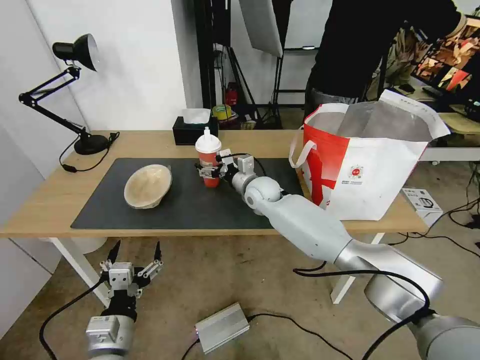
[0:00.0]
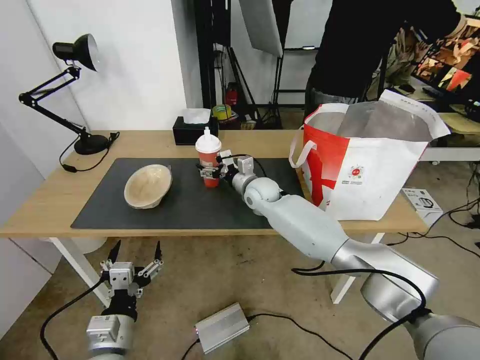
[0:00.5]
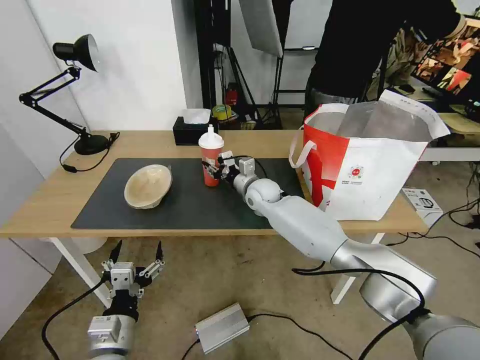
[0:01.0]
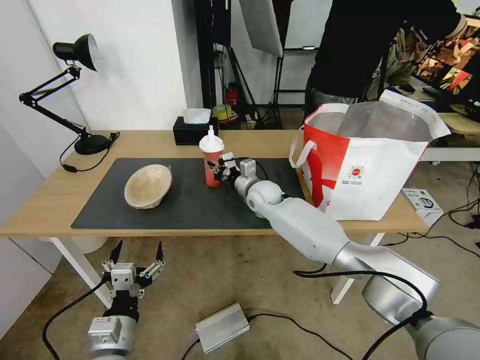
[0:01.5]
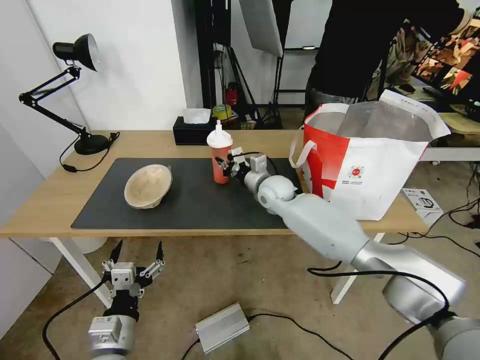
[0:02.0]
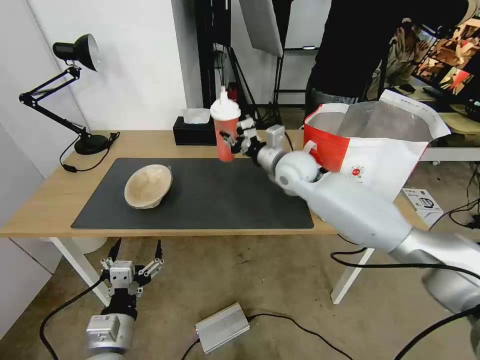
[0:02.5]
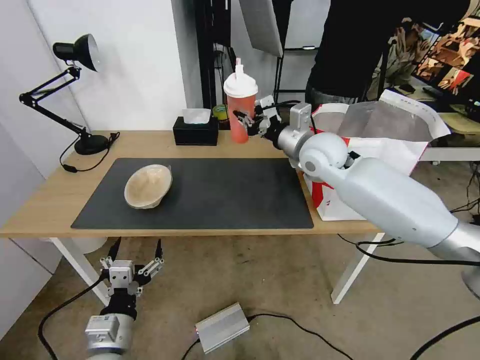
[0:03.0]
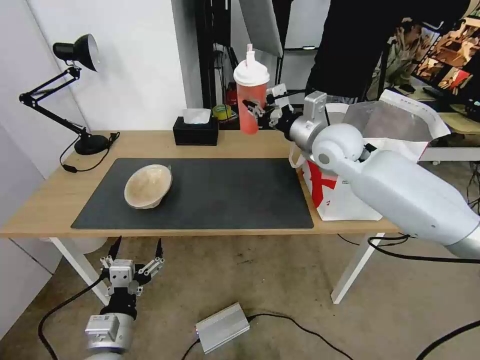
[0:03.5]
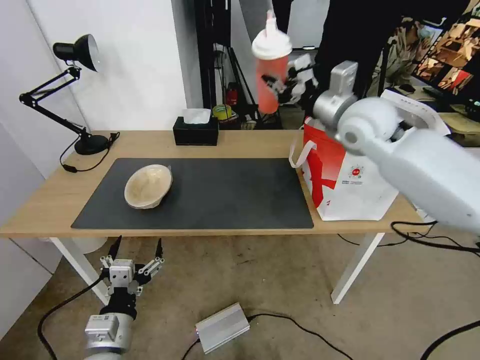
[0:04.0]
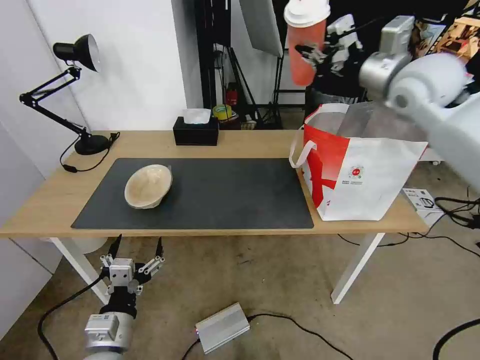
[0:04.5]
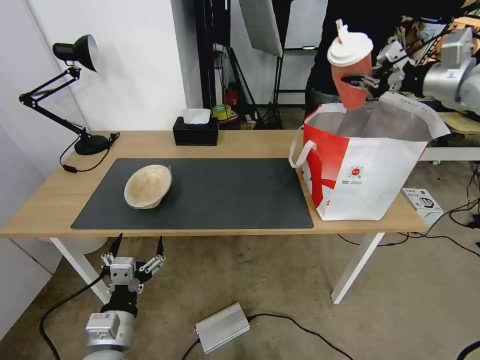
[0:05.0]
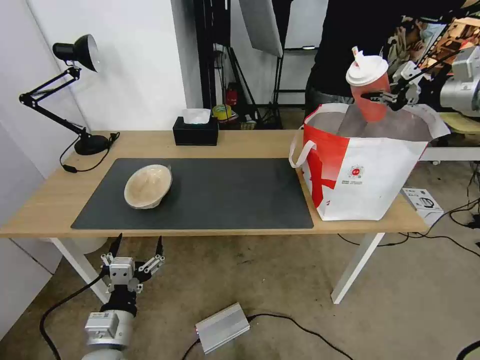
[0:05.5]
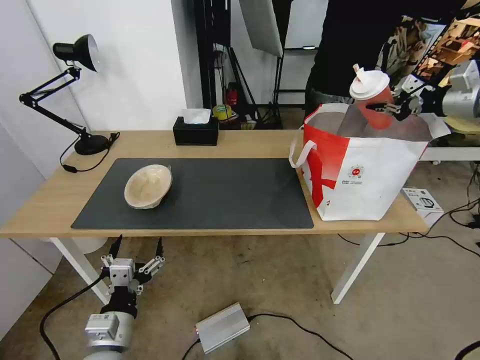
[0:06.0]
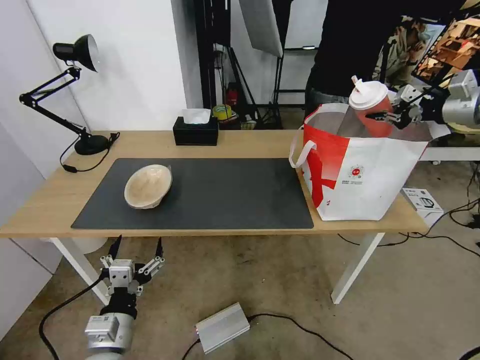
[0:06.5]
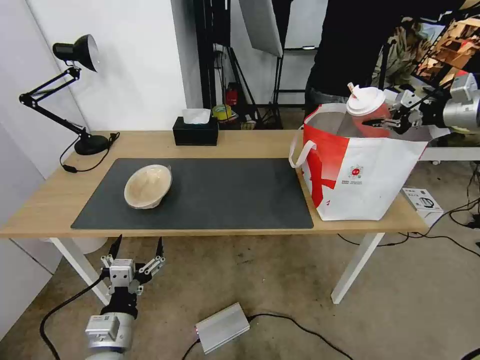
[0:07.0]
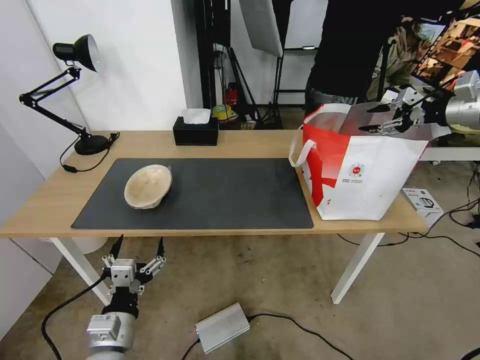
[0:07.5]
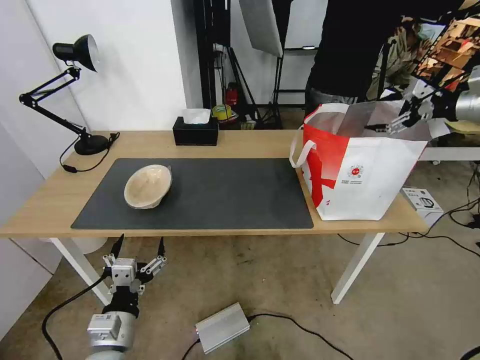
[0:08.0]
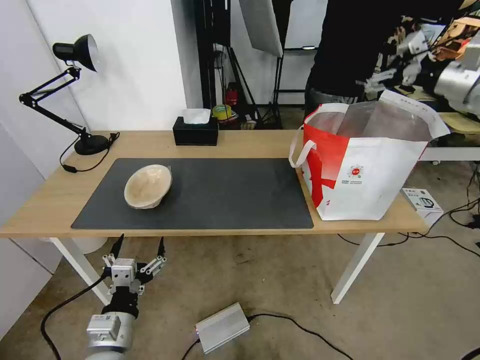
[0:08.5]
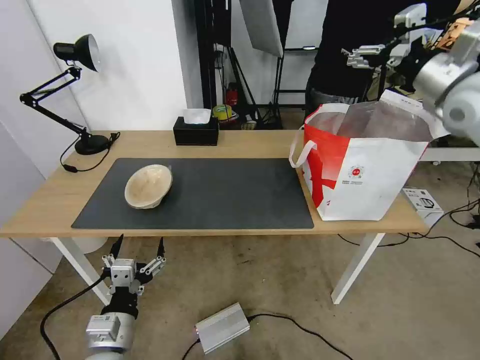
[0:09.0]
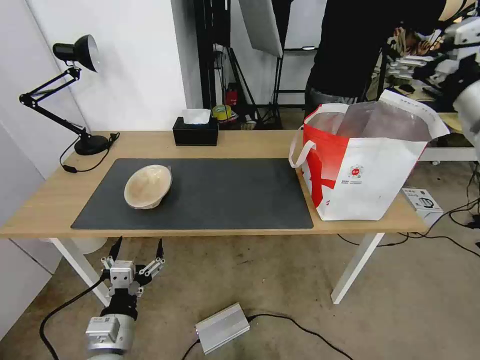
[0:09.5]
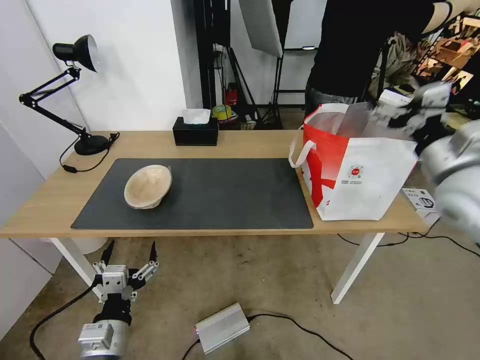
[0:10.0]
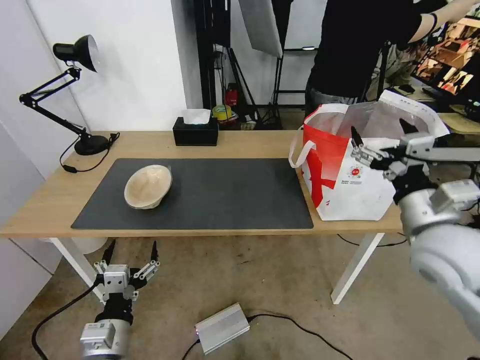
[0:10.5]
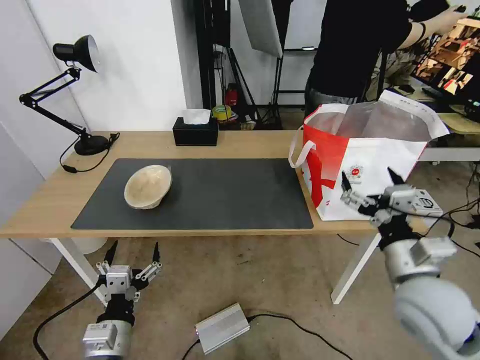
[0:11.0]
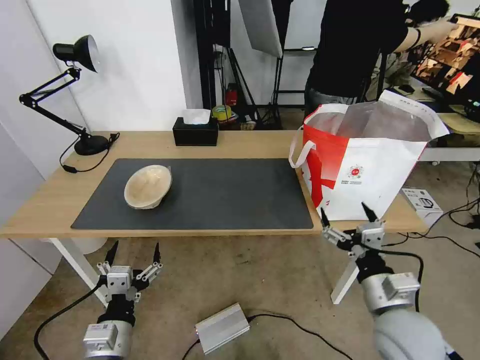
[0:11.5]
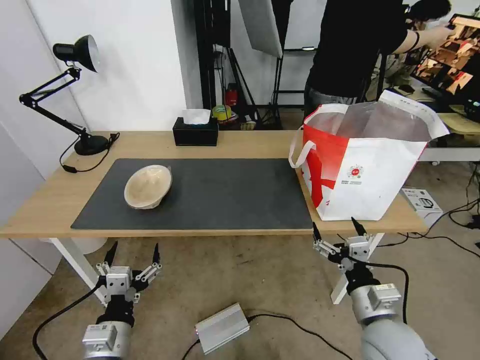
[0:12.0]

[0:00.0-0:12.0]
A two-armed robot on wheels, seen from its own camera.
Task of the whole recording: Pick up the trash from the table and place it into the takeout bag.
0.0 to 2.0 s: The right gripper closes its fingers.
2.0 to 4.0 s: The right gripper heads upward and to the right, covering some 25 cm.
4.0 to 6.0 s: The right gripper heads to the right, covering roughly 30 cm.
6.0 to 8.0 s: The right gripper opens up.
8.0 to 10.0 s: The right gripper goes roughly 25 cm to the left, backward and downward.
10.0 to 12.0 s: The right gripper travels downward, backward and to the left by roughly 30 cm.

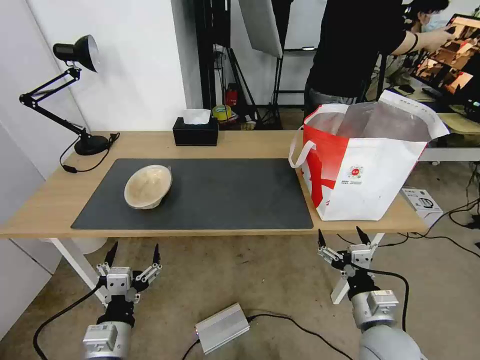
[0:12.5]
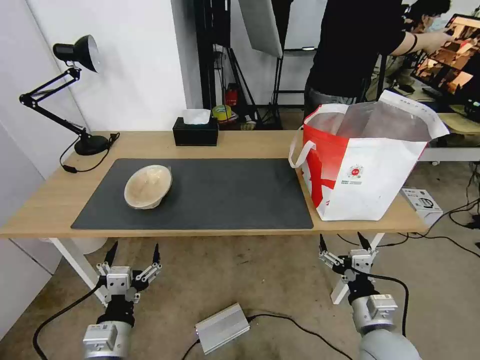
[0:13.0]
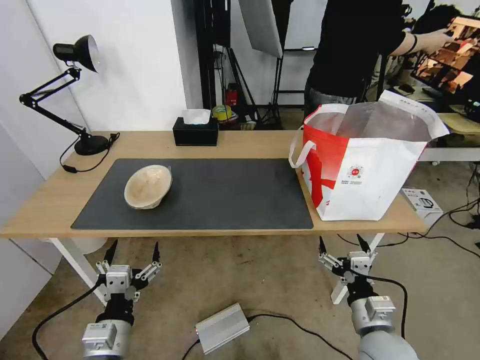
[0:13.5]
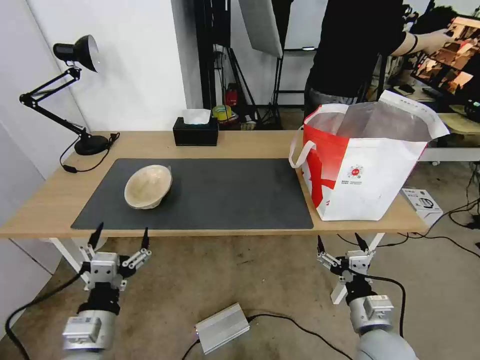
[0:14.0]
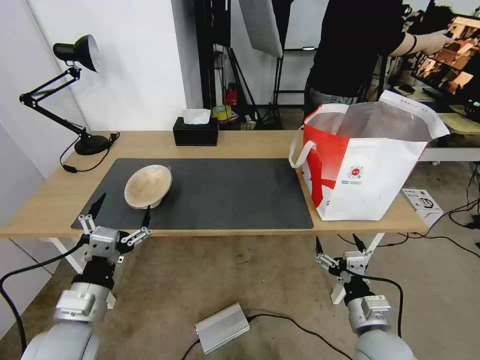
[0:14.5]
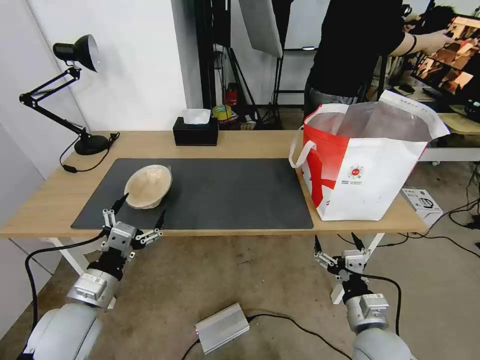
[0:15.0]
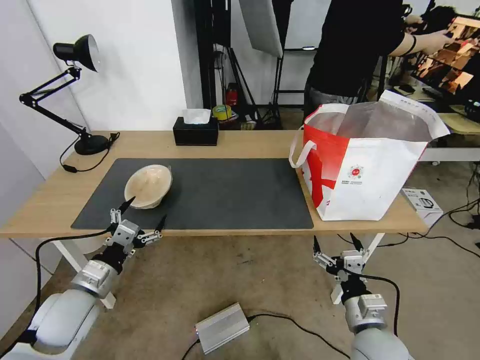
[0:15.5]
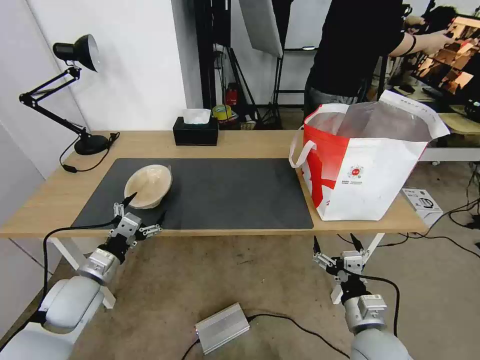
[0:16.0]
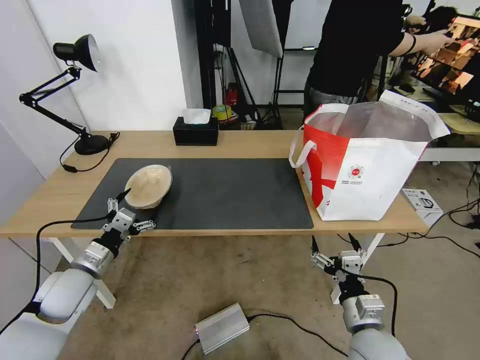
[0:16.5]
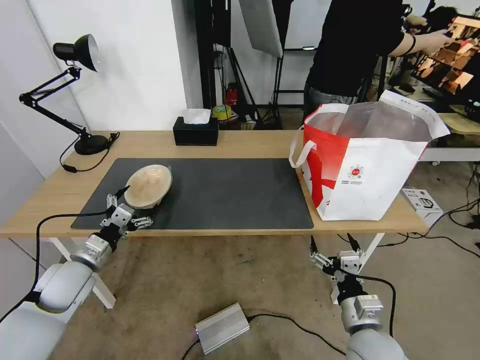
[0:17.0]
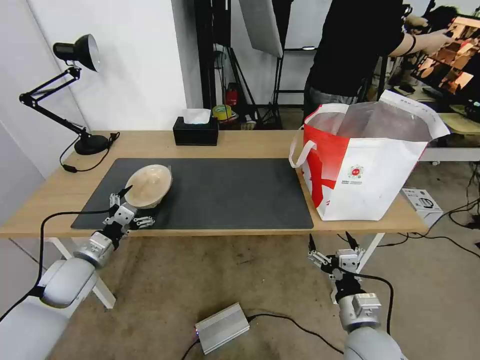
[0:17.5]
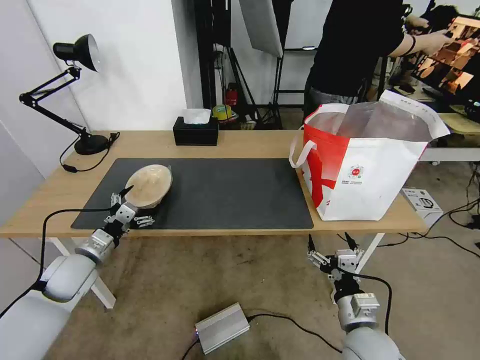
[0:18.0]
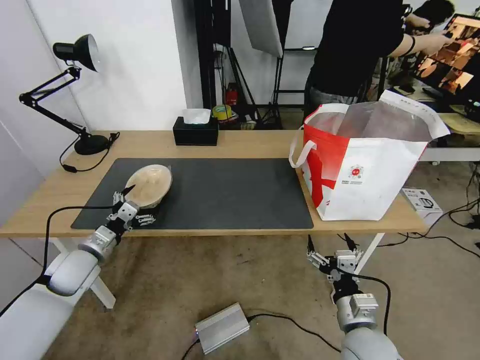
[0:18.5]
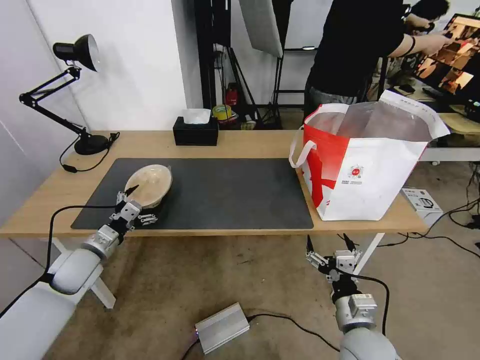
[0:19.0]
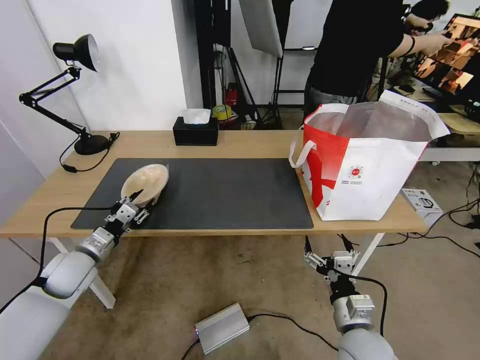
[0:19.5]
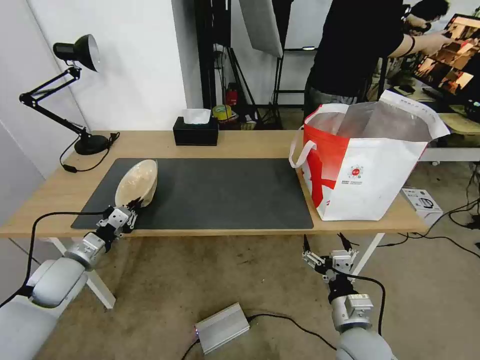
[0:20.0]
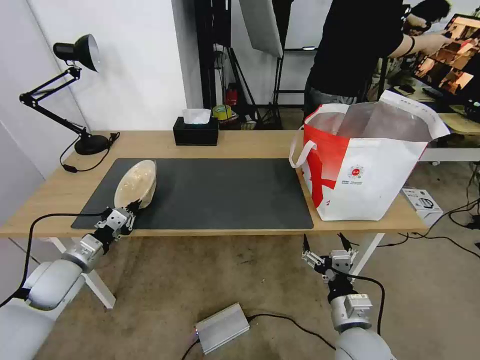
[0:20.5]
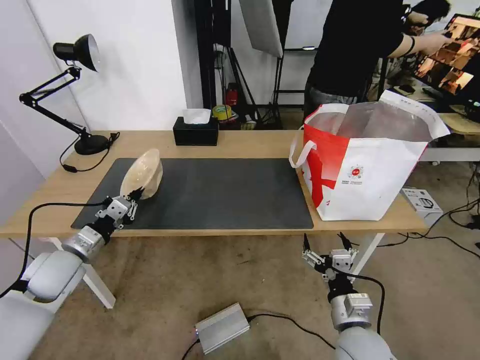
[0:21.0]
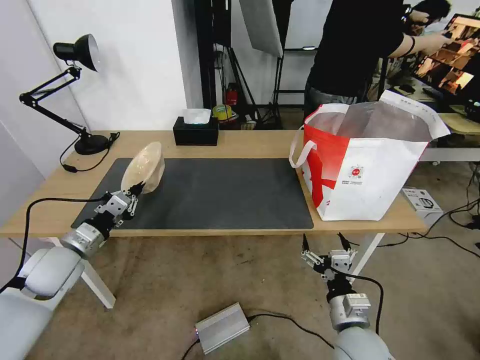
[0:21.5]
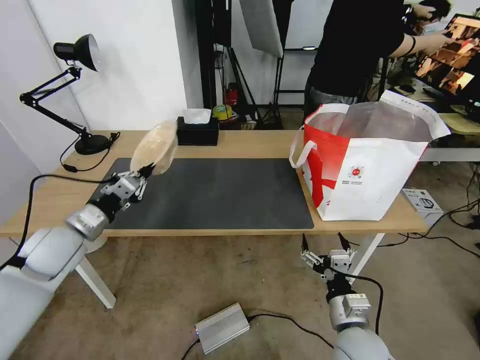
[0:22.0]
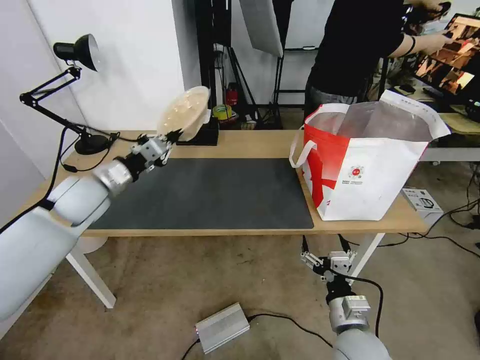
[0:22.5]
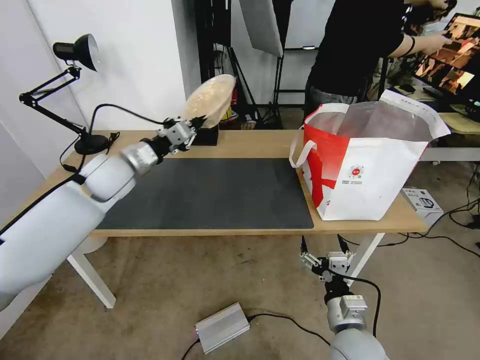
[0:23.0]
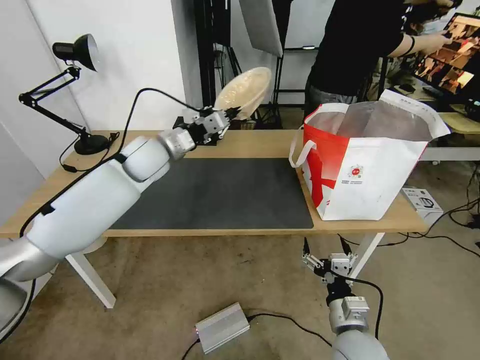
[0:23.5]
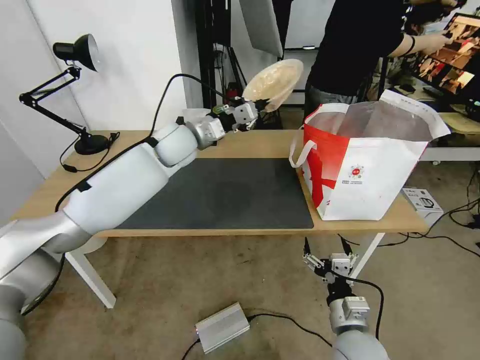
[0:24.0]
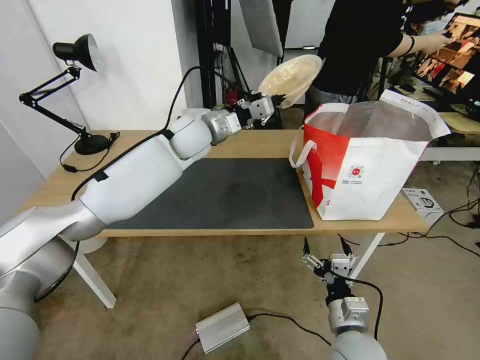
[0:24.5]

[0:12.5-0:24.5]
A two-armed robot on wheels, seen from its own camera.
Task of the whole recording: Pick up the trash from the table and place it into the takeout bag.
12.5 to 14.5 s: The left gripper goes approximately 5 cm upward.
14.5 to 16.5 s: The left gripper heads forward and to the left, covering approximately 15 cm.
16.5 to 18.5 s: The left gripper goes some 5 cm forward.
18.5 to 20.5 s: The left gripper closes up.
20.5 to 22.5 s: The left gripper moves upward, forward and to the right, roughly 20 cm.
22.5 to 24.5 s: The left gripper is displaced to the right and forward by some 25 cm.

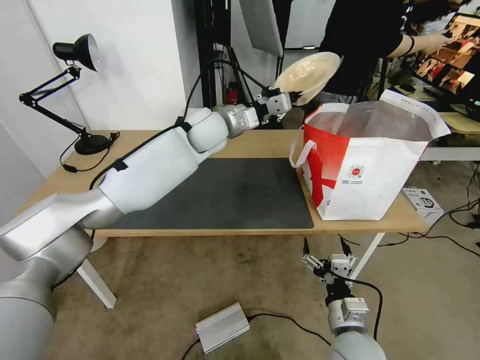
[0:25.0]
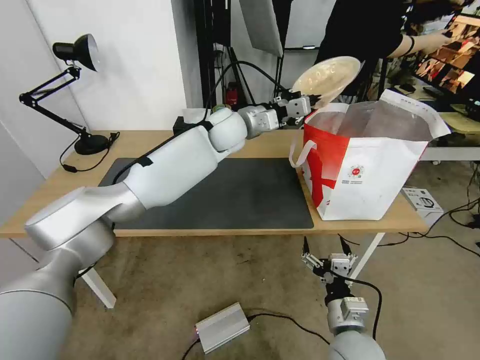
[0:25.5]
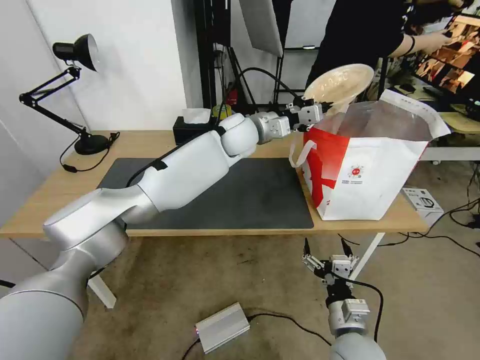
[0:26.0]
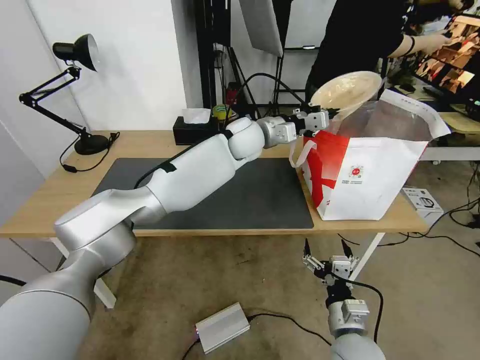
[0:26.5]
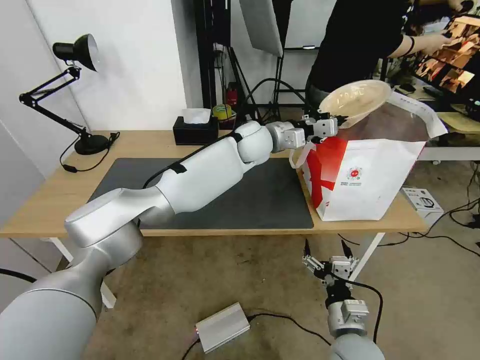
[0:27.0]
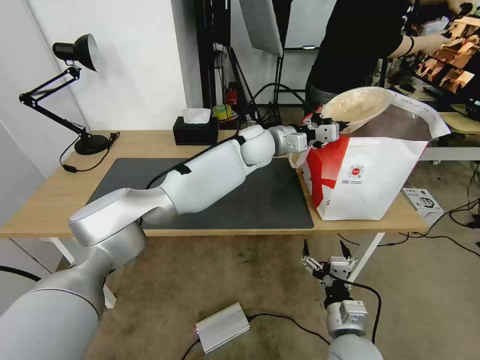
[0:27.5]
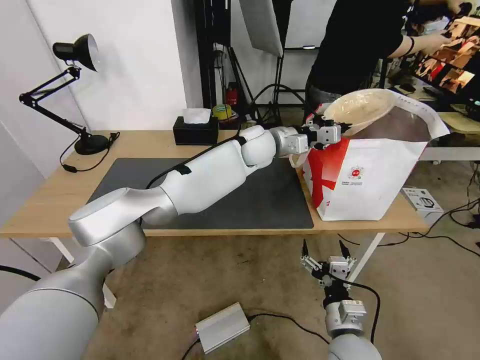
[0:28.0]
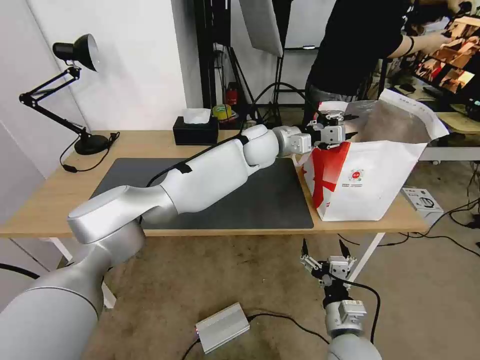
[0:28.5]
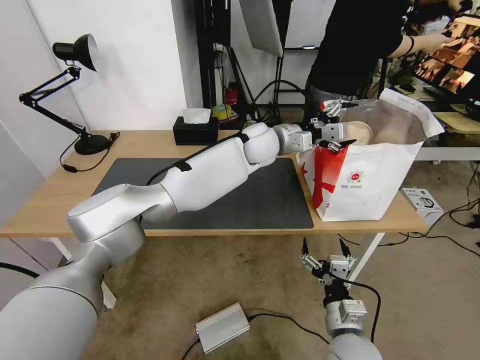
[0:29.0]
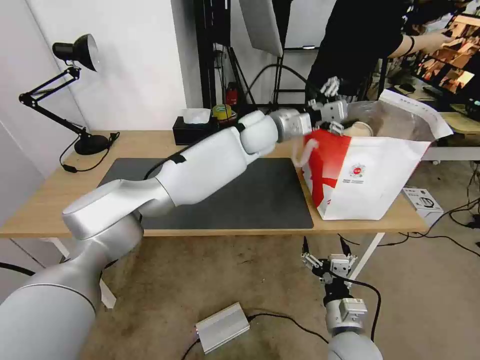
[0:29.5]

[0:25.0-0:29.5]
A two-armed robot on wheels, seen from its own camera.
Task of the whole recording: Pick up the trash from the table and place it into the takeout bag.
25.0 to 27.0 s: The left gripper heads to the right, covering approximately 10 cm.
27.0 to 29.5 s: The left gripper opens up.
